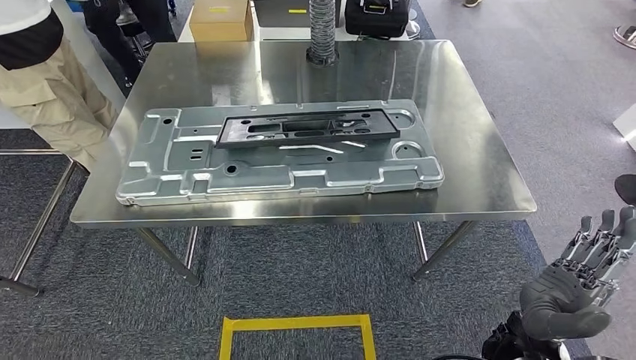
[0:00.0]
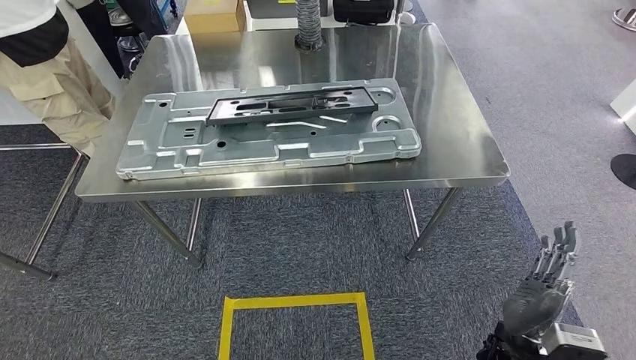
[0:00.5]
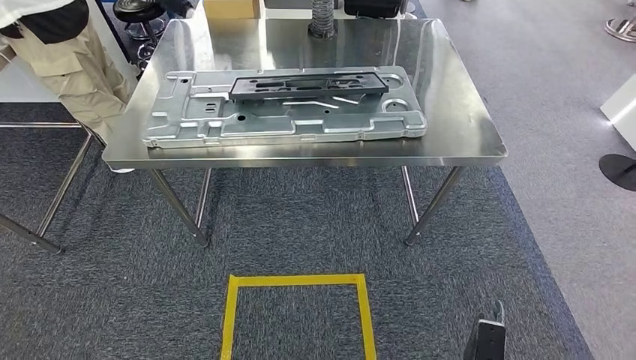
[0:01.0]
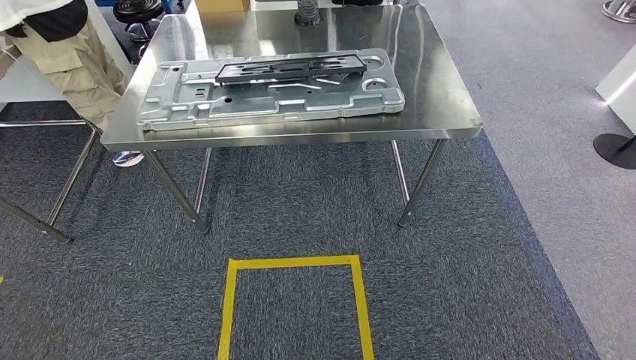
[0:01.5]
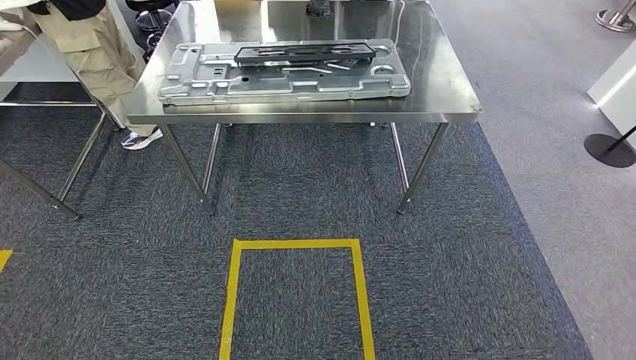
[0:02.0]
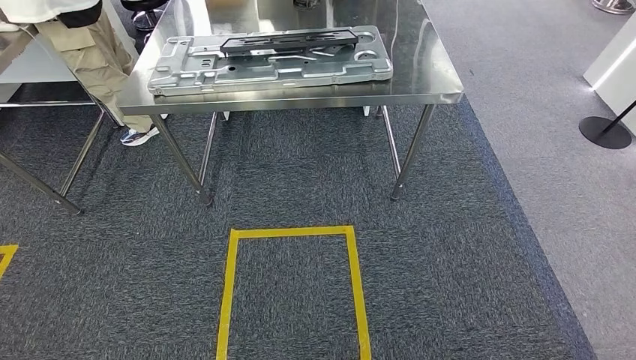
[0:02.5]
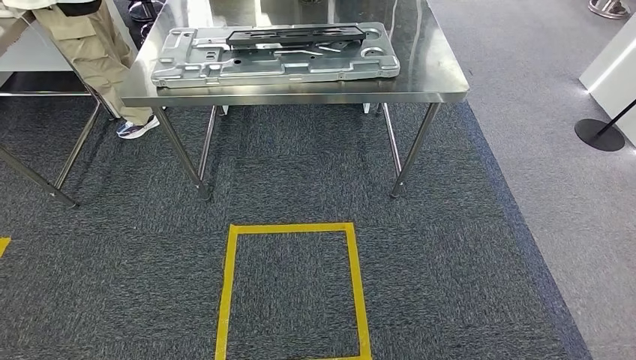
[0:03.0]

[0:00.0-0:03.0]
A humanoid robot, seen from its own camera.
Step, 0:00.0 to 0:03.0: Return to the initial position at the workbench.
